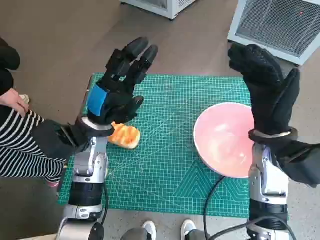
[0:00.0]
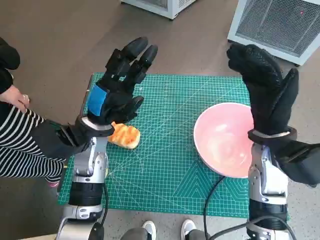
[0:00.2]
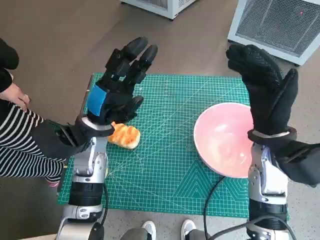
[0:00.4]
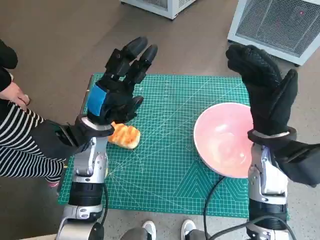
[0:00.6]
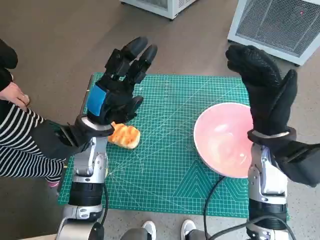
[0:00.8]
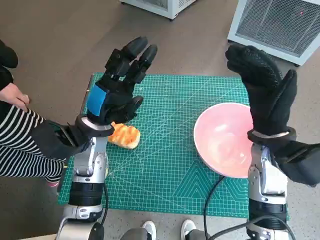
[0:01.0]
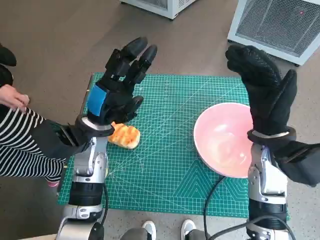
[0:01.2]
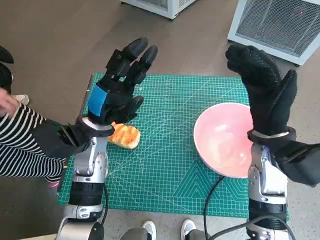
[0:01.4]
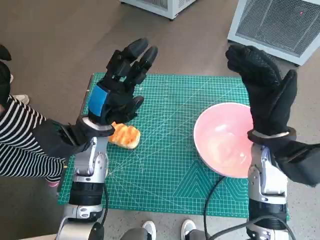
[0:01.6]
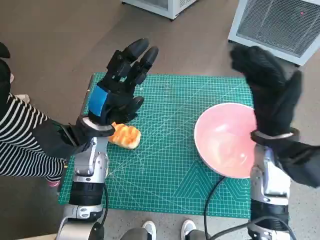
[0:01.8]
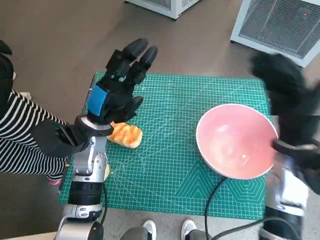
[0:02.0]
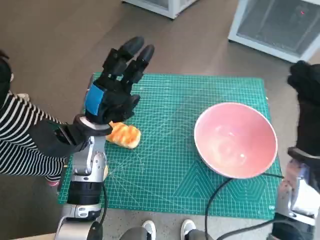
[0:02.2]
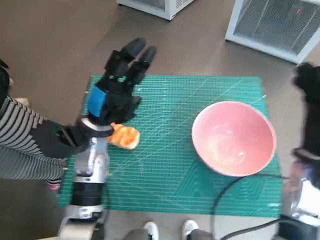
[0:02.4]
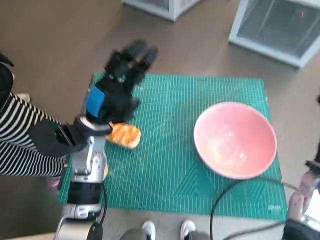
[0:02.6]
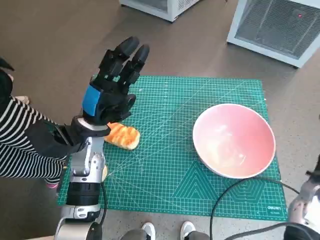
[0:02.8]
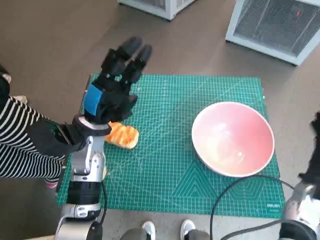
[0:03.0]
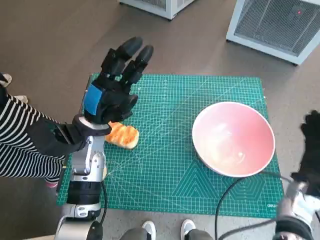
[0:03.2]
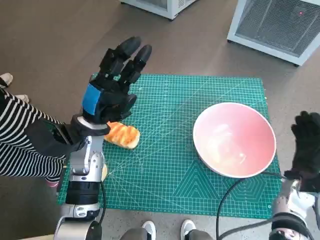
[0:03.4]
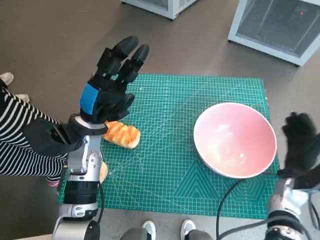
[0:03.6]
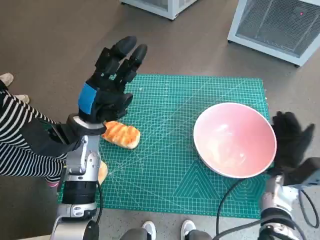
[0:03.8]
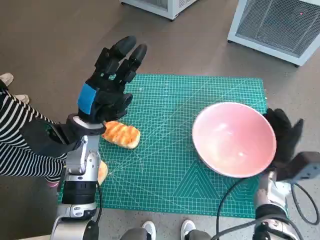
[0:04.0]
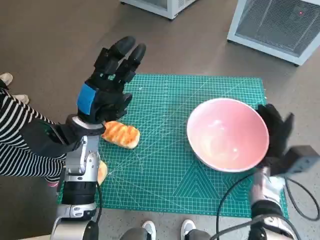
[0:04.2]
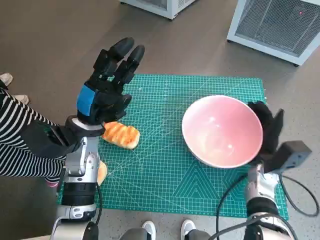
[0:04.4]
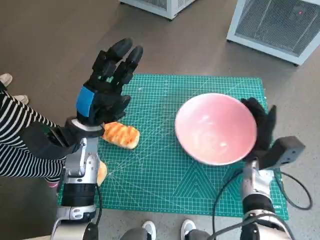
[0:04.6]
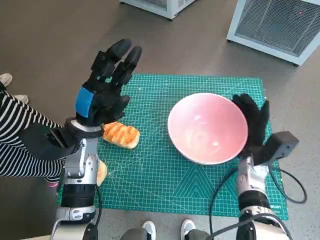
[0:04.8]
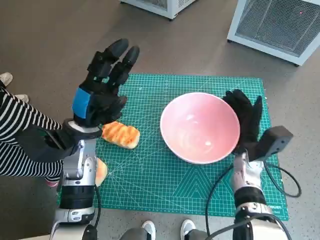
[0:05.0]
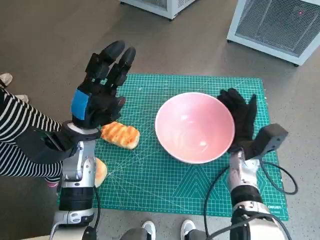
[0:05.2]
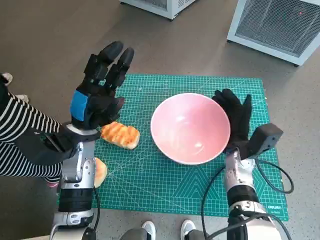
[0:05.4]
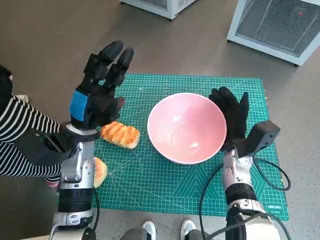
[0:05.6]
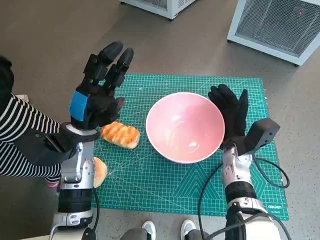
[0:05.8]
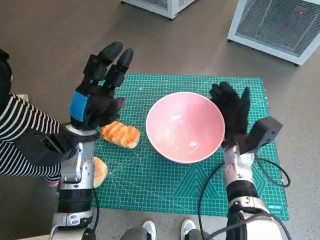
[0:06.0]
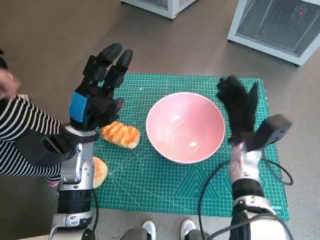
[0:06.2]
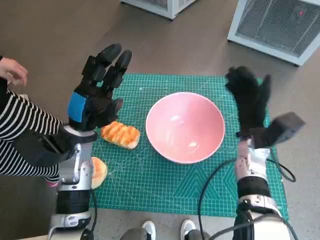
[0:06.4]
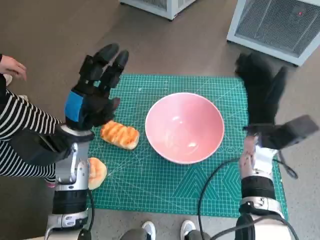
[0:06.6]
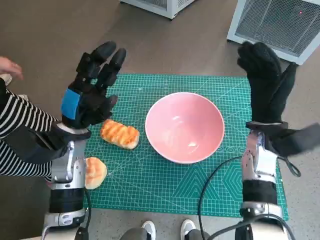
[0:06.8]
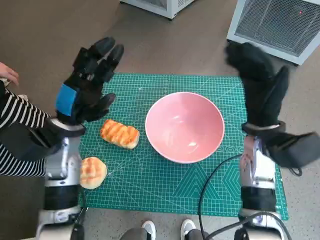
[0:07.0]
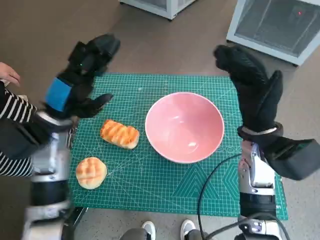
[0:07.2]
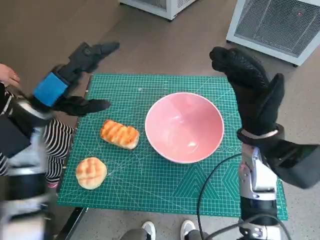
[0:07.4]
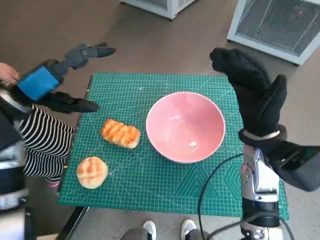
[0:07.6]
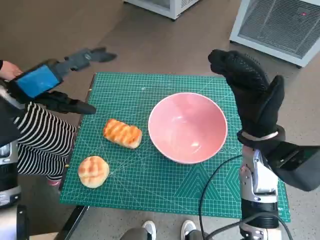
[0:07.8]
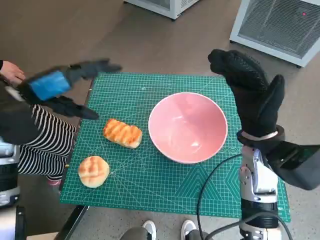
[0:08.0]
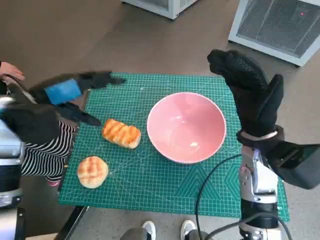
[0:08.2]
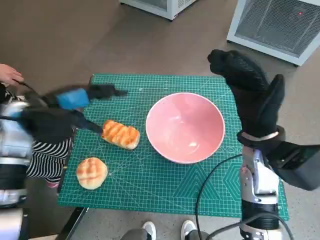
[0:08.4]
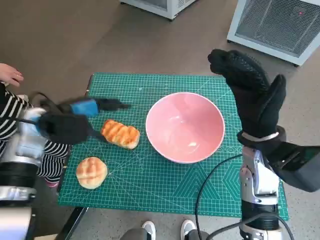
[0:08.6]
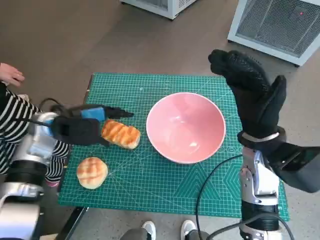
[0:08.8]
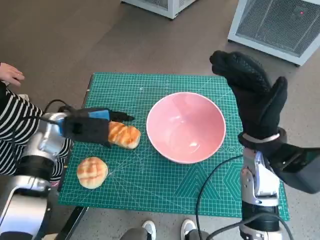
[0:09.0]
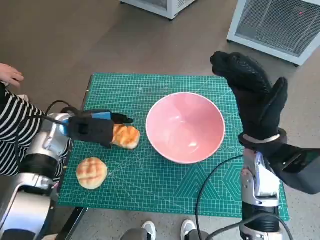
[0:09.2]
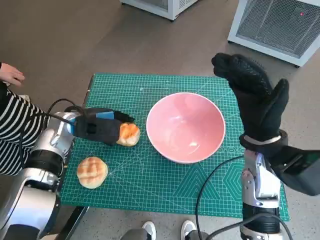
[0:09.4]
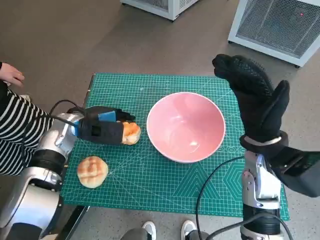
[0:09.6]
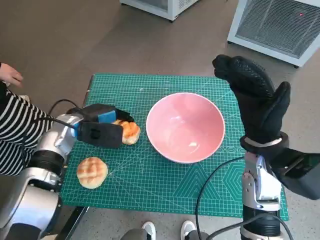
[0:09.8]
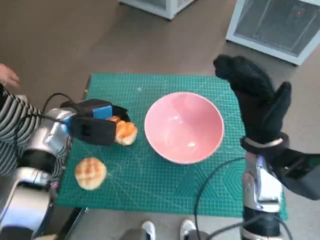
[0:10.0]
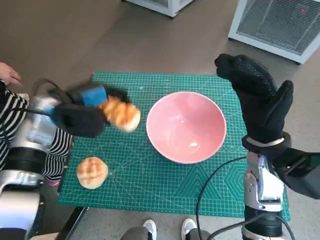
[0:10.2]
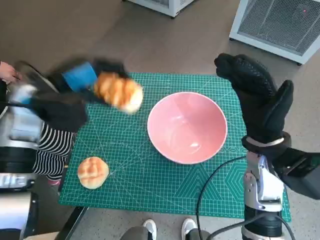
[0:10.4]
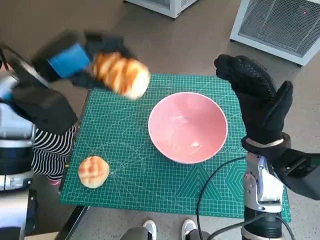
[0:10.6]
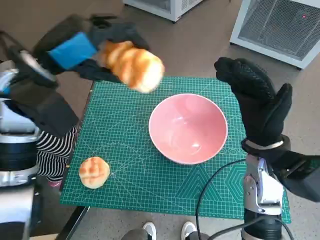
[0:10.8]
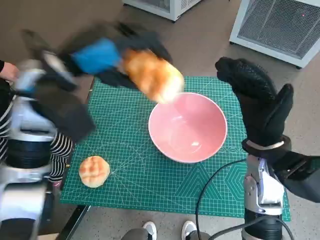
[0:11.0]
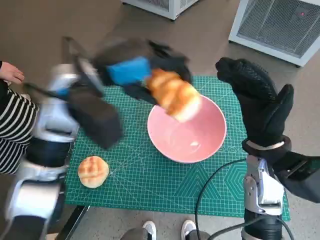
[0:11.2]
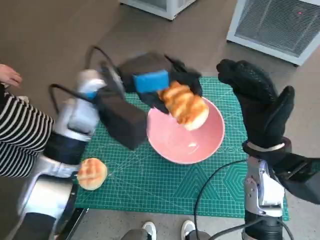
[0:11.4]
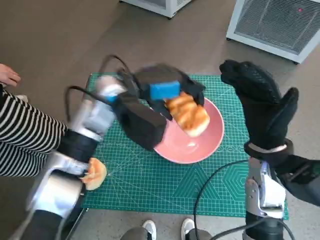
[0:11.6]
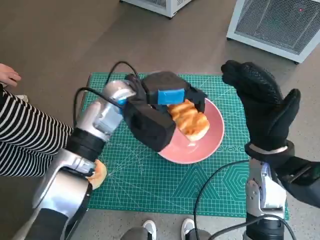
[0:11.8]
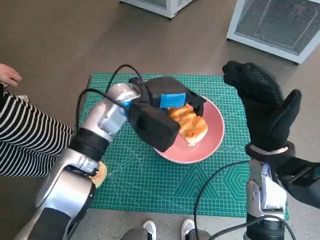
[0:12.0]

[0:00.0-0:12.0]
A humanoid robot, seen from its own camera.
Task of the whole recording: Push the bowl into the center of the table and put the bread into the bowl.
Step, 0:00.0 to 0:06.2: Move the pink bowl to the center of table with right hand.
Step, 0:06.4 to 0:09.8: Grasp the long bread with left hand.
0:01.6 to 0:03.0: The right hand travels to the right and downward by some 15 cm.
0:03.0 to 0:04.4: The right hand travels to the left by about 10 cm.
0:04.4 to 0:06.0: The right hand is displaced to the left by roughly 5 cm.
0:06.0 to 0:07.6: The right hand shifts some 10 cm upward; the left hand heads upward and to the left, covering roughly 10 cm.
0:07.6 to 0:09.0: The left hand shifts roughly 10 cm downward.
0:09.0 to 0:10.4: The left hand is displaced upward by roughly 10 cm.
0:10.4 to 0:12.0: The left hand goes approximately 15 cm to the right.

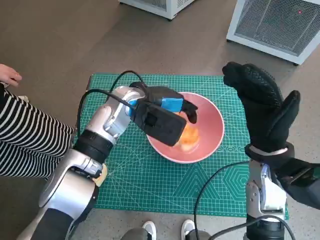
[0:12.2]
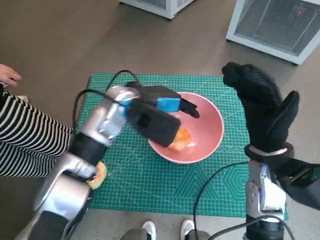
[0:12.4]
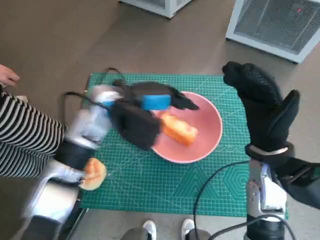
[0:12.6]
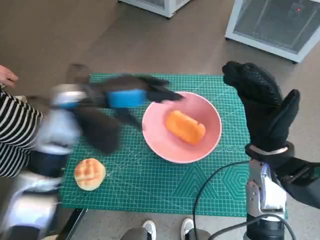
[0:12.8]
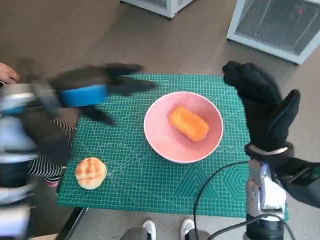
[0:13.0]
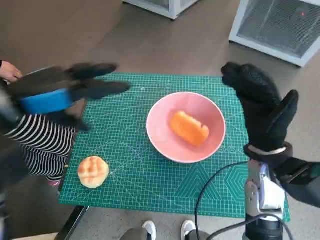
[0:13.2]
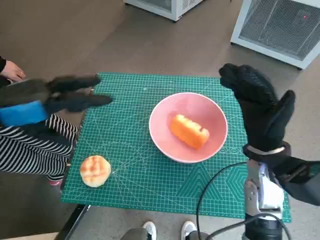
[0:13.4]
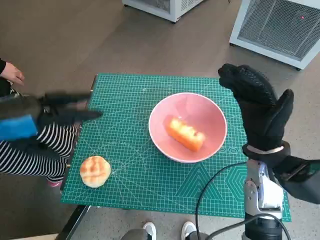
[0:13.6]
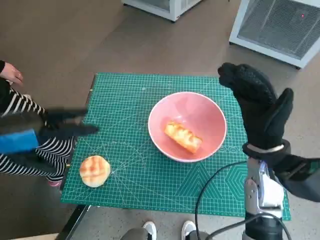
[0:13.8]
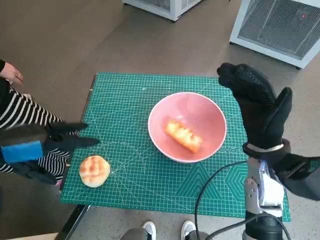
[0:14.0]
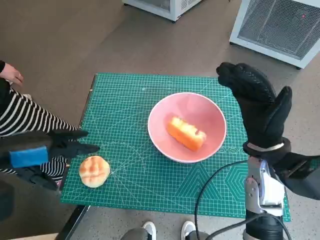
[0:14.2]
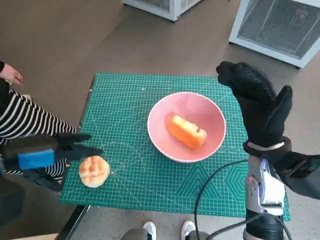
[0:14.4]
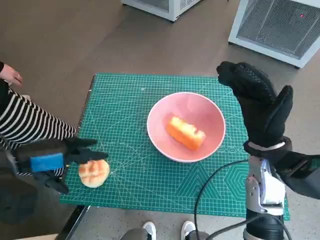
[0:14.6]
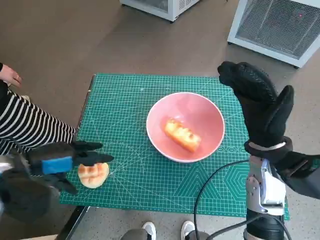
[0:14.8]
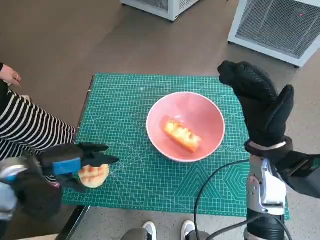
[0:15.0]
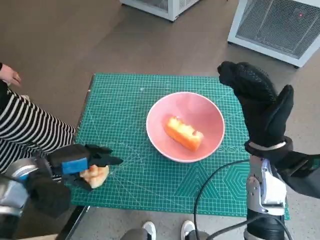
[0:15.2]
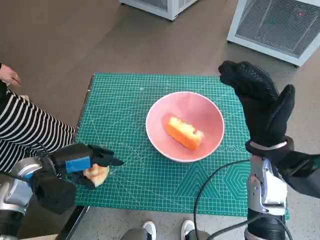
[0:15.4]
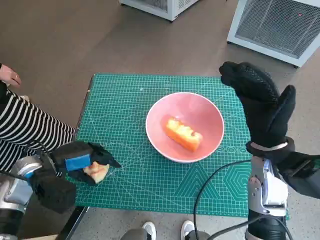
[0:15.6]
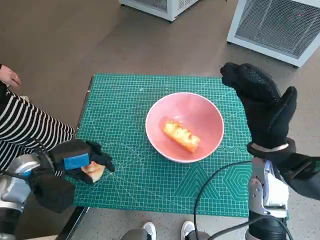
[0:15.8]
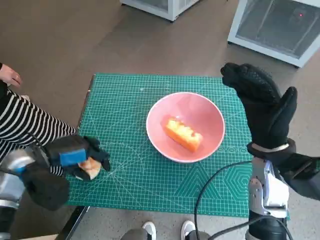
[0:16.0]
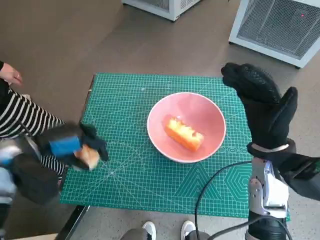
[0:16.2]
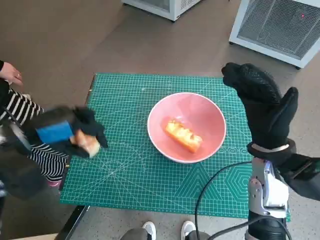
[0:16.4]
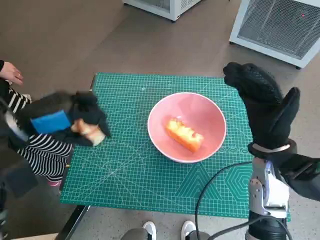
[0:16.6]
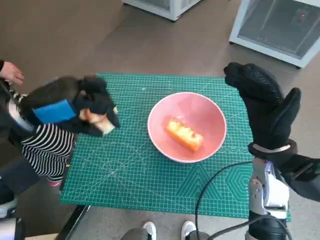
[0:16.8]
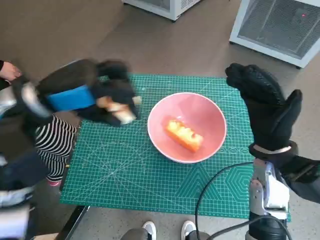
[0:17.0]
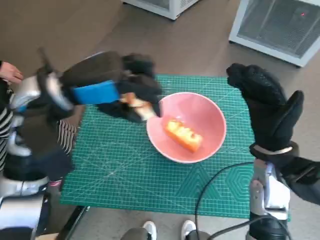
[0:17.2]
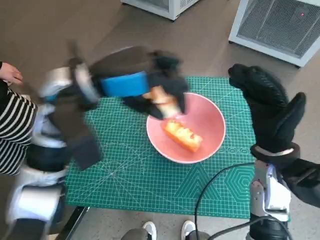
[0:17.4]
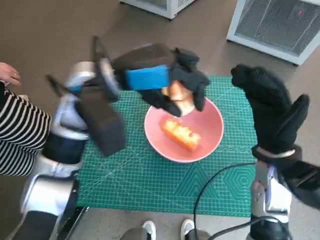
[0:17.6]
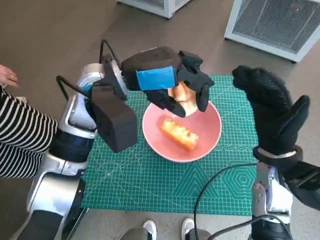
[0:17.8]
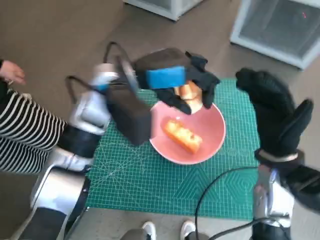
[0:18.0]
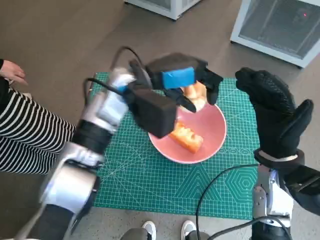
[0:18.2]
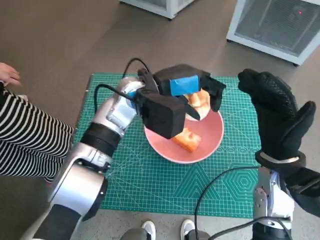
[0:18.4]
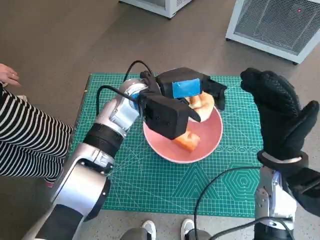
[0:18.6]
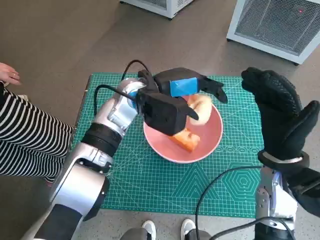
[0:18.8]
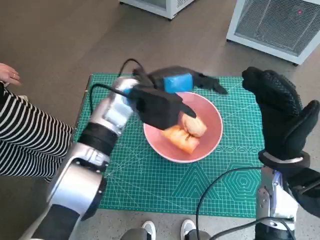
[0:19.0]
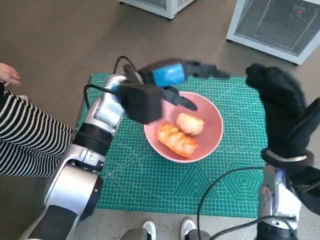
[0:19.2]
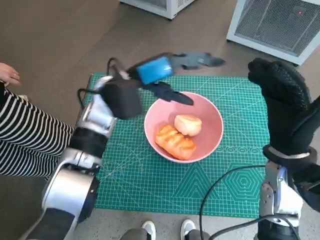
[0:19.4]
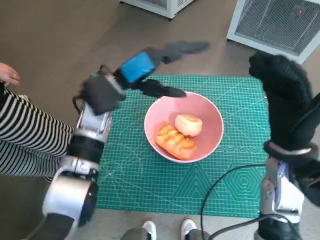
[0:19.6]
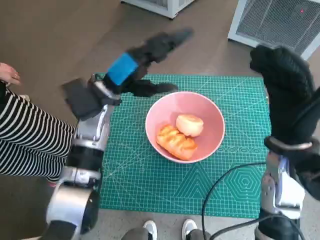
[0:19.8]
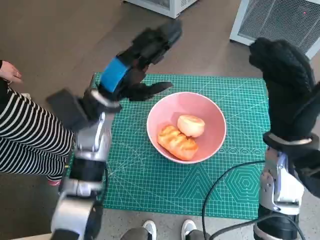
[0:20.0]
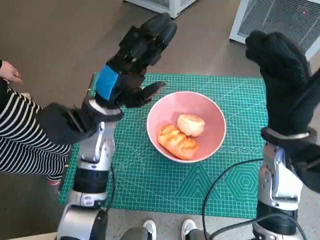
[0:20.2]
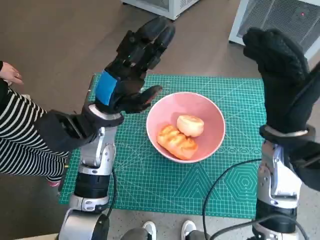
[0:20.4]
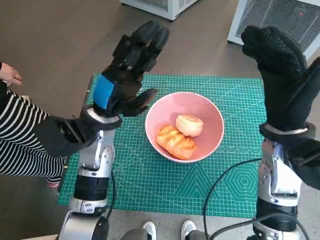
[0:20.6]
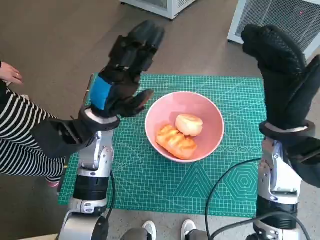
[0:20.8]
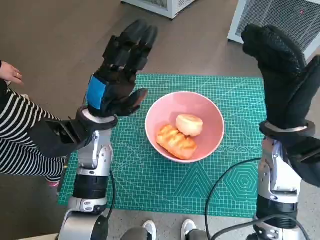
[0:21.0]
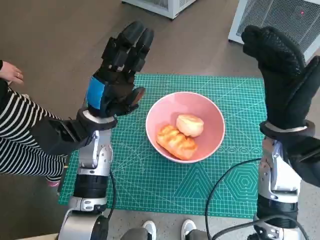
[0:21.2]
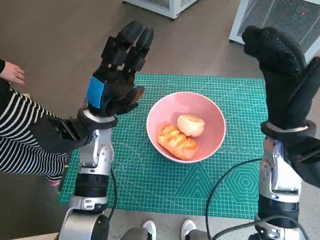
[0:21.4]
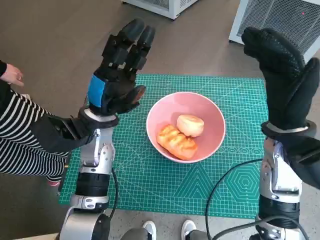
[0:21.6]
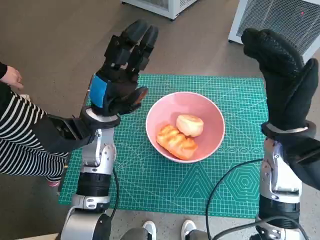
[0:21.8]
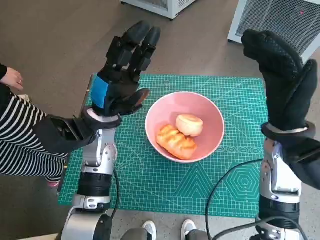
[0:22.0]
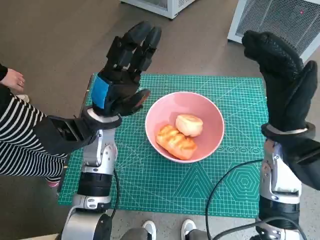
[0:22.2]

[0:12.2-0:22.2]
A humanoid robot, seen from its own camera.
Task of the whole recording: Push the bowl into the center of the table and put the bread into the bowl.
Step, 0:13.0 to 0:15.6: Grasp the round bread with left hand.
Step, 0:16.0 to 0:19.0: Place the round bread in pink bowl with left hand.
0:12.2 to 0:13.6: The left hand heads to the left and backward, covering approximately 25 cm.
0:13.6 to 0:15.0: The left hand travels downward by about 15 cm.
0:15.0 to 0:16.4: The left hand shifts some 5 cm upward.
0:16.4 to 0:18.0: The left hand moves to the right and forward, some 20 cm.
0:18.0 to 0:19.4: The left hand changes place by approximately 5 cm.
0:19.4 to 0:20.8: The left hand shifts some 5 cm backward.
0:20.8 to 0:22.2: The hands stay close to where they were, moving slightly.
